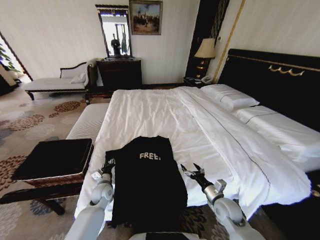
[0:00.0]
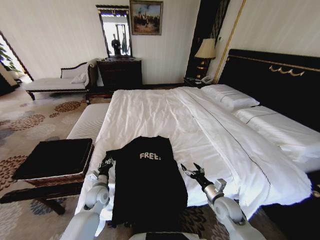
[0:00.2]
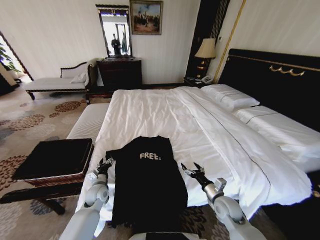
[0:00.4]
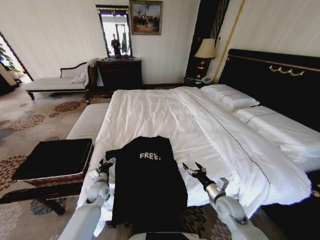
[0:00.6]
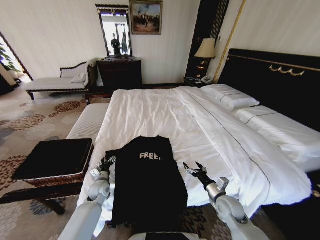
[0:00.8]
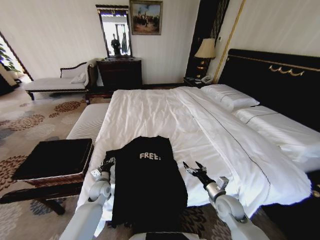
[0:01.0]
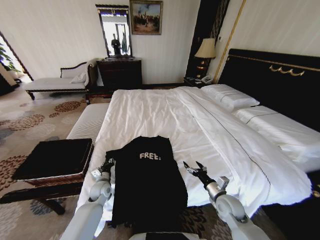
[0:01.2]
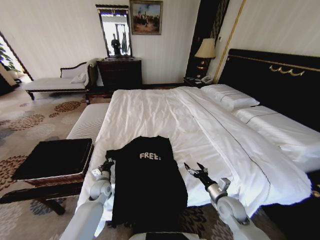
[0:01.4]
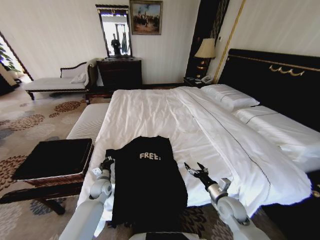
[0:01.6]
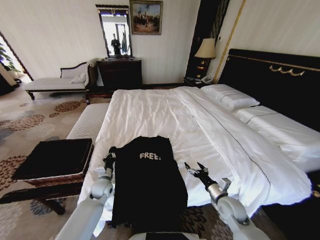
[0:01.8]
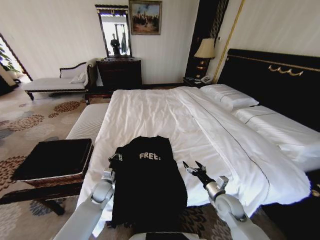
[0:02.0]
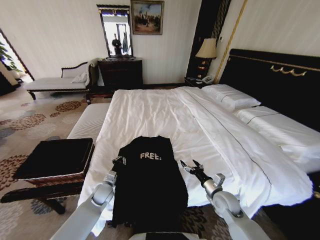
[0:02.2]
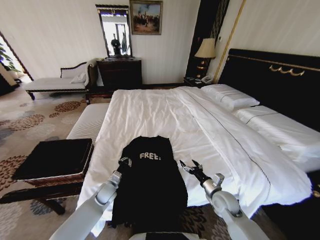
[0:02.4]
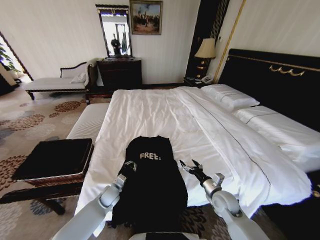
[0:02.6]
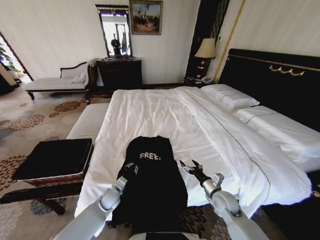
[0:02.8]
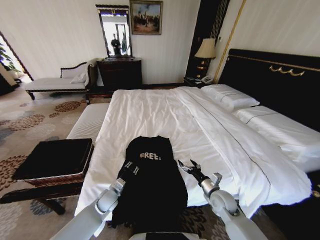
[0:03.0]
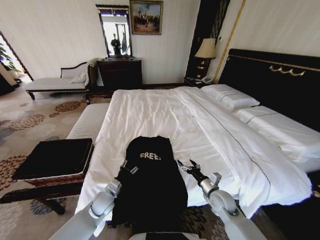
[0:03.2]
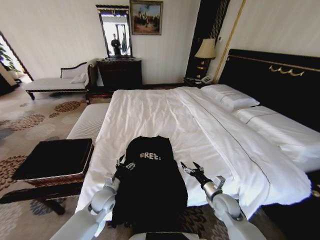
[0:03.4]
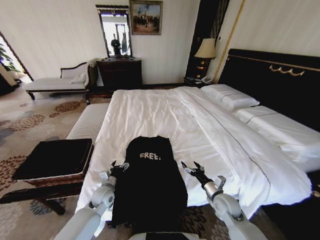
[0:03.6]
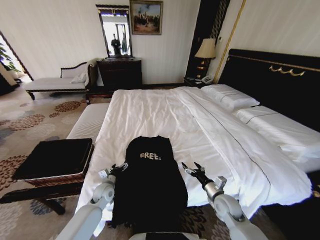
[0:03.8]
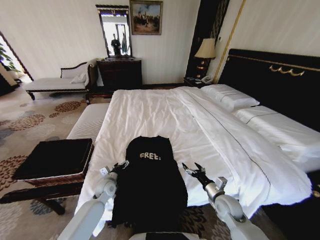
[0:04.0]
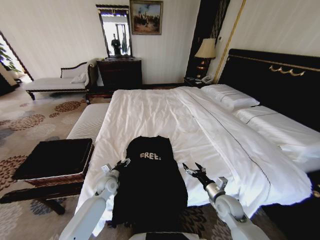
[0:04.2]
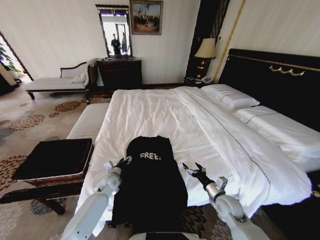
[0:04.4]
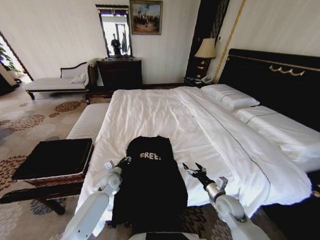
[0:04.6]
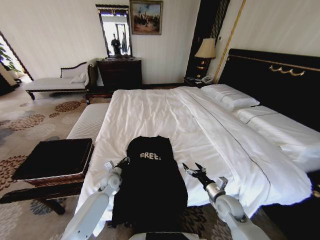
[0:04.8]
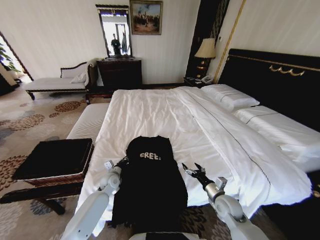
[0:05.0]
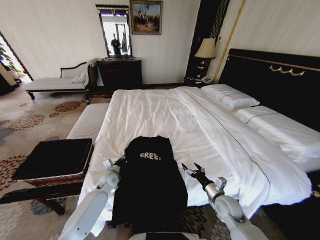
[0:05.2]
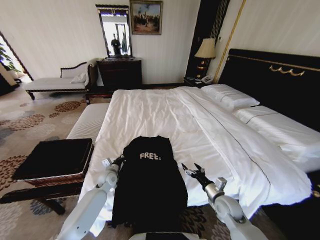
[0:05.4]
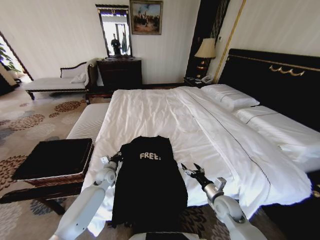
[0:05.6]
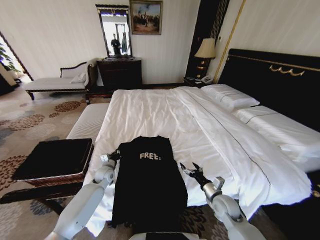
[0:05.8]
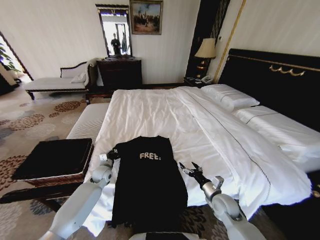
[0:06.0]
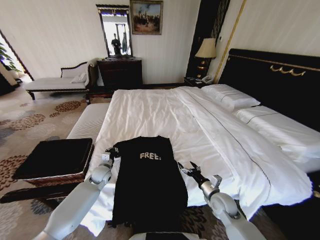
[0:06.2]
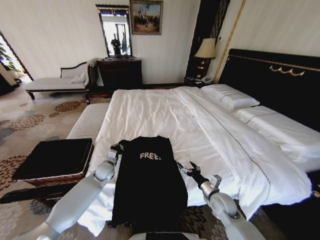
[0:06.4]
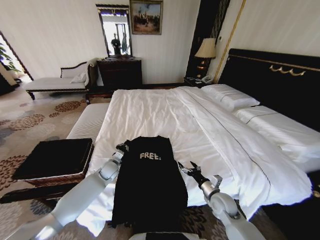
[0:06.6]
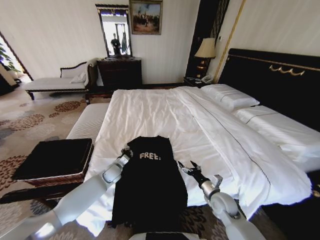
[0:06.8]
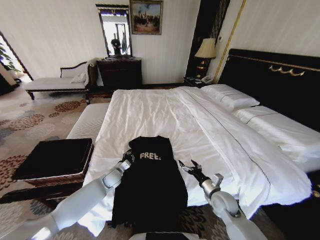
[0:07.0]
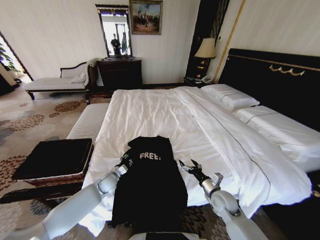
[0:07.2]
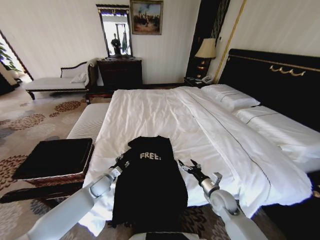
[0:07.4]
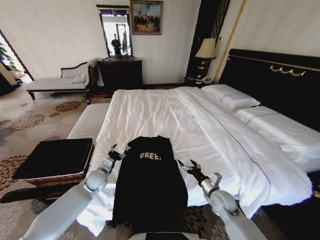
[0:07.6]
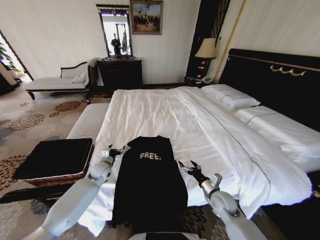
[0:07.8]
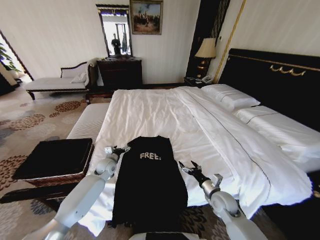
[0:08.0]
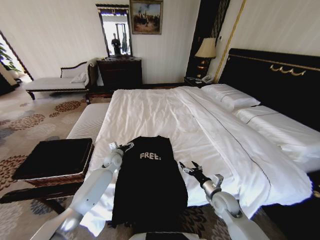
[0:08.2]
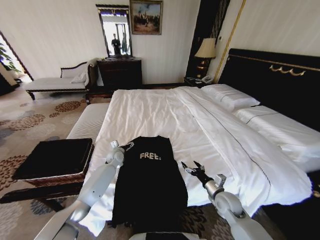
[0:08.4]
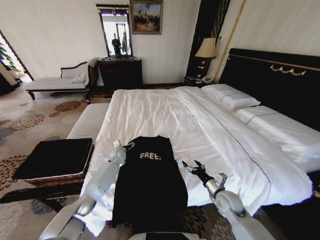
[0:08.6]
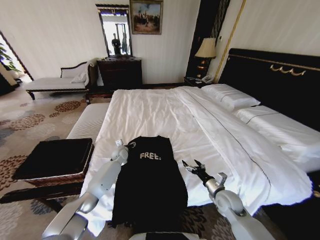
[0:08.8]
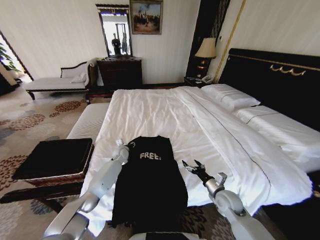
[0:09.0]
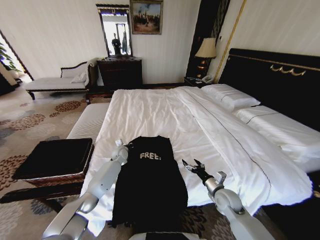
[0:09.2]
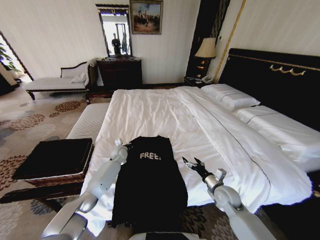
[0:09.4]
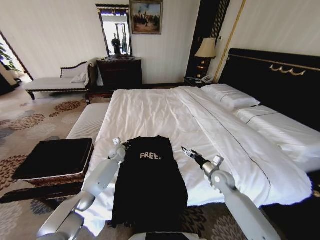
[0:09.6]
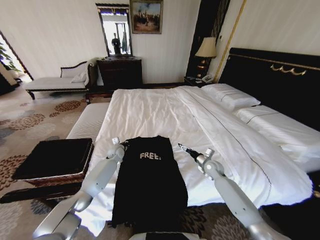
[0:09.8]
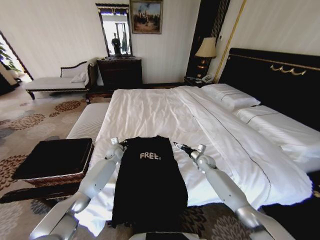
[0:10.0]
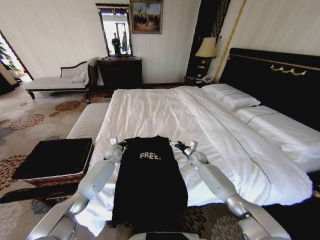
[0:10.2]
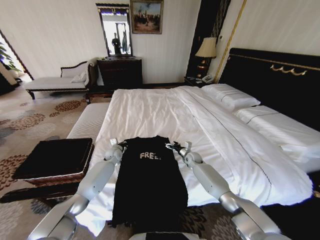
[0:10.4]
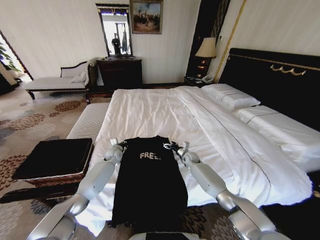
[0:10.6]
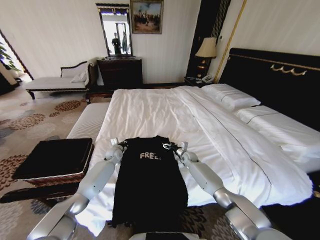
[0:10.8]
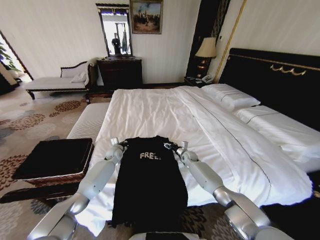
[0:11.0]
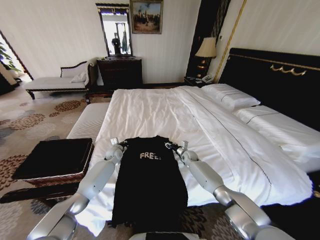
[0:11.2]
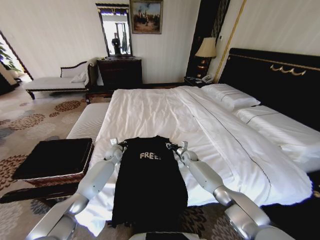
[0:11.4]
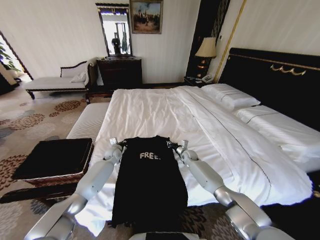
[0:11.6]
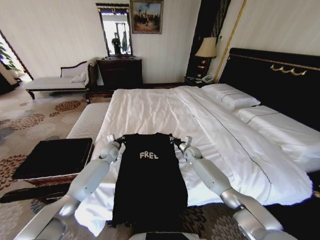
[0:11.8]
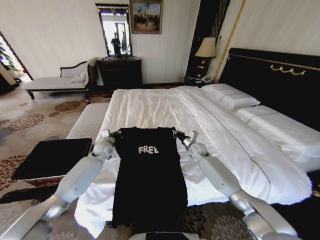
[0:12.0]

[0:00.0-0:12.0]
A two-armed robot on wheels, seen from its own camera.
Task of the whole recording: Fold the clothes on the bed and place them into the basket.
0:00.0 to 0:01.6: The left gripper closes.
0:01.6 to 0:03.0: The left gripper moves backward, some 5 cm, and opens up.
0:03.0 to 0:04.4: The left gripper is displaced forward by about 10 cm, and opens its fingers.
0:04.4 to 0:06.0: The left gripper moves some 5 cm, and closes its fingers.
0:06.0 to 0:07.6: The left gripper moves roughly 5 cm, and opens its fingers.
0:07.6 to 0:09.0: The left gripper travels forward and to the right by about 20 cm.
0:09.0 to 0:10.4: The left gripper closes; the right gripper is displaced forward by approximately 25 cm.
0:10.4 to 0:12.0: The two grippers go roughly 10 cm upward. The right gripper closes.

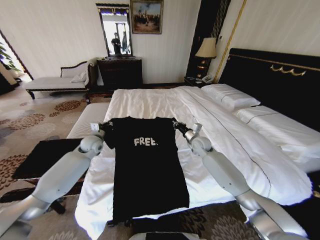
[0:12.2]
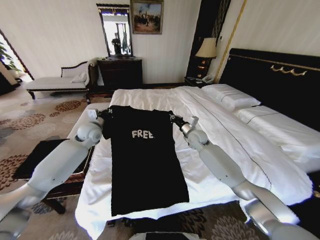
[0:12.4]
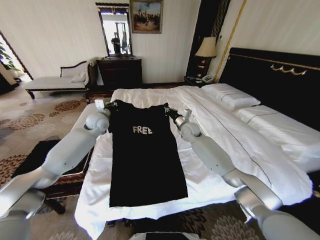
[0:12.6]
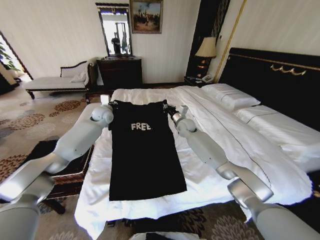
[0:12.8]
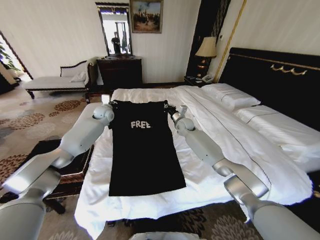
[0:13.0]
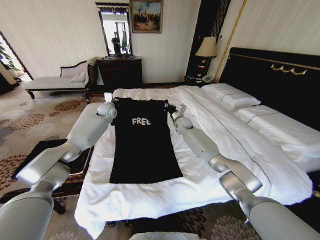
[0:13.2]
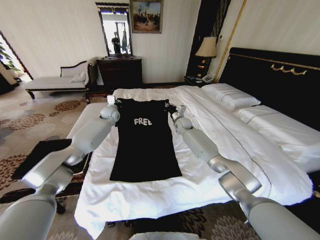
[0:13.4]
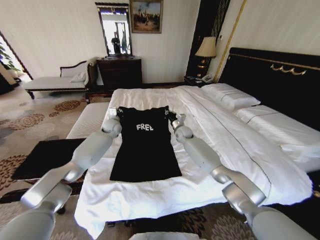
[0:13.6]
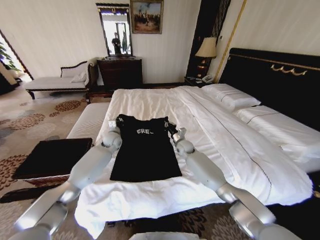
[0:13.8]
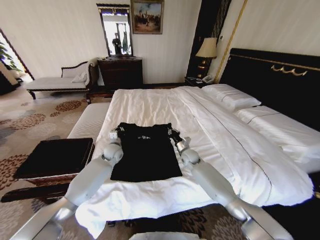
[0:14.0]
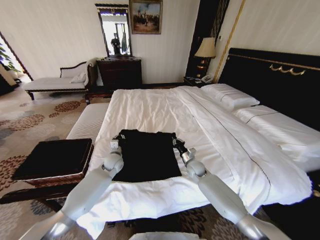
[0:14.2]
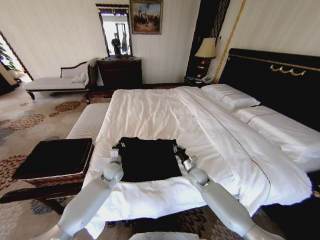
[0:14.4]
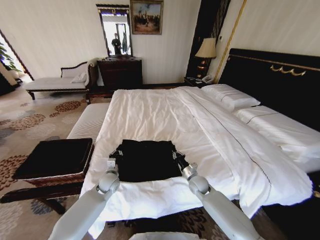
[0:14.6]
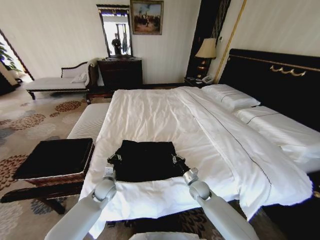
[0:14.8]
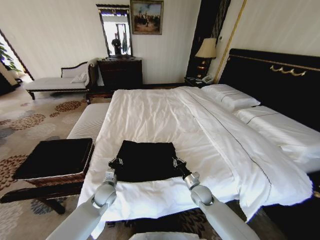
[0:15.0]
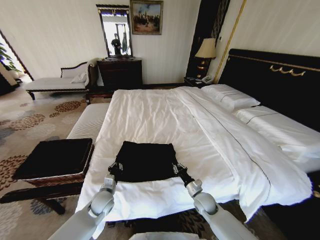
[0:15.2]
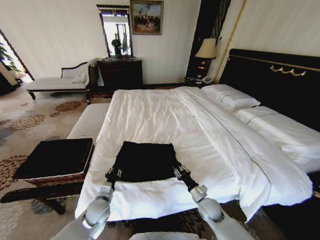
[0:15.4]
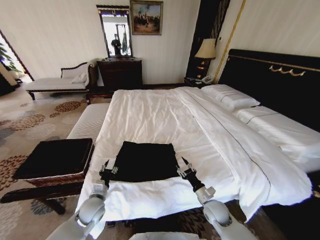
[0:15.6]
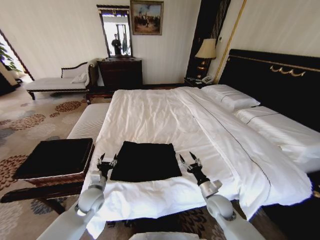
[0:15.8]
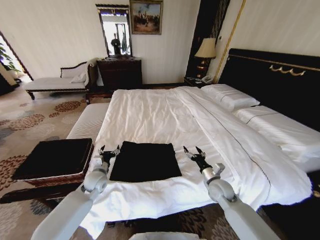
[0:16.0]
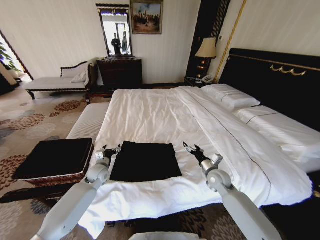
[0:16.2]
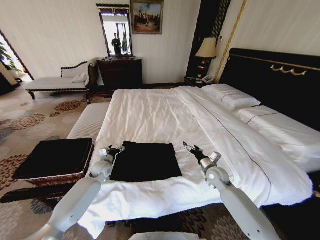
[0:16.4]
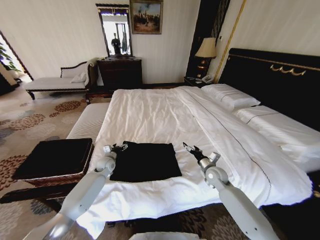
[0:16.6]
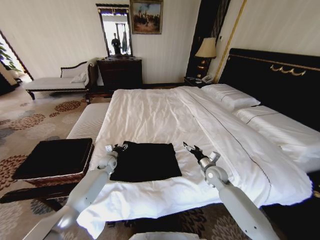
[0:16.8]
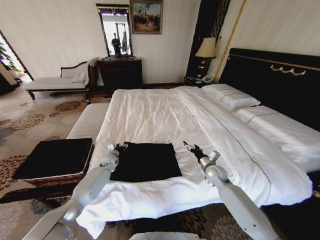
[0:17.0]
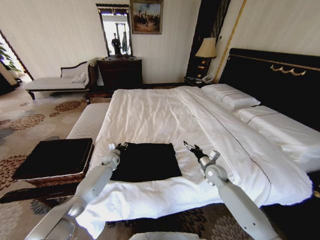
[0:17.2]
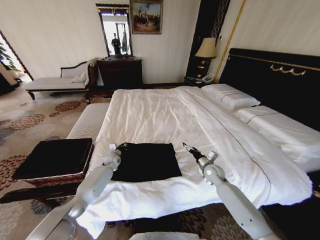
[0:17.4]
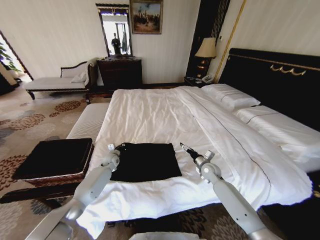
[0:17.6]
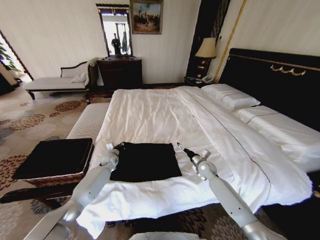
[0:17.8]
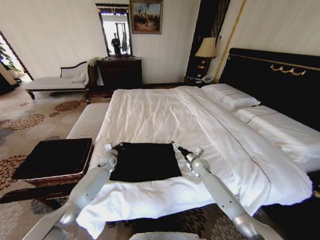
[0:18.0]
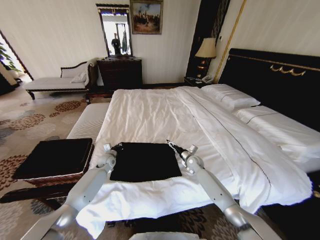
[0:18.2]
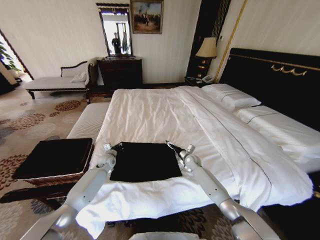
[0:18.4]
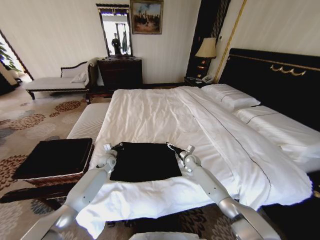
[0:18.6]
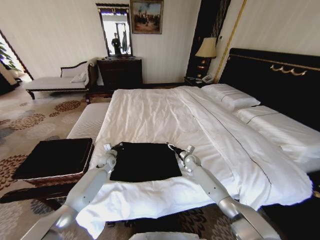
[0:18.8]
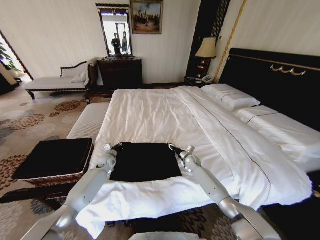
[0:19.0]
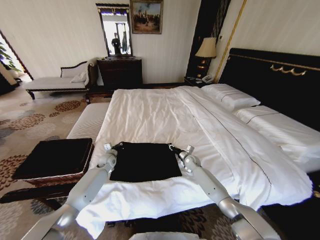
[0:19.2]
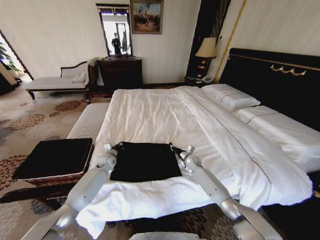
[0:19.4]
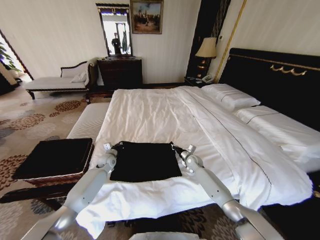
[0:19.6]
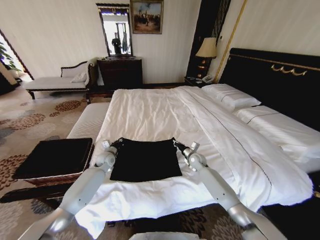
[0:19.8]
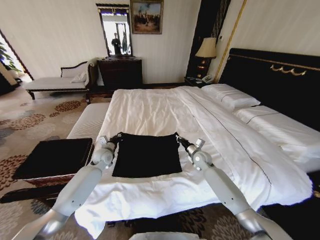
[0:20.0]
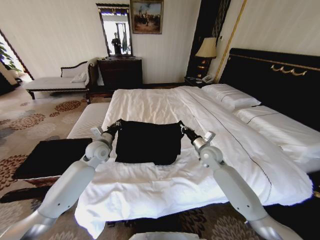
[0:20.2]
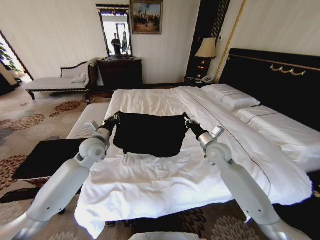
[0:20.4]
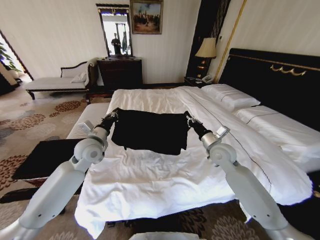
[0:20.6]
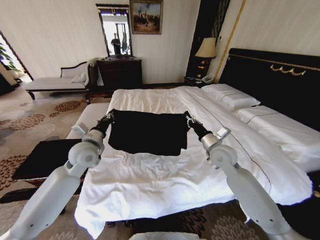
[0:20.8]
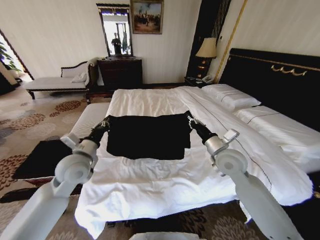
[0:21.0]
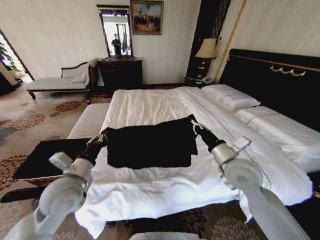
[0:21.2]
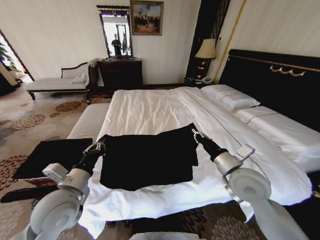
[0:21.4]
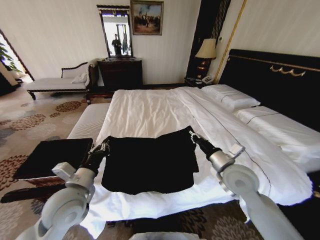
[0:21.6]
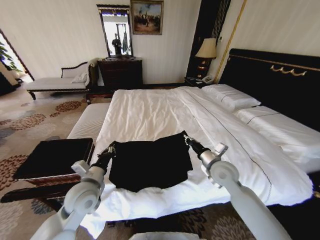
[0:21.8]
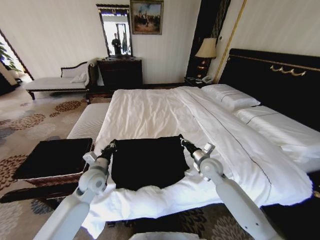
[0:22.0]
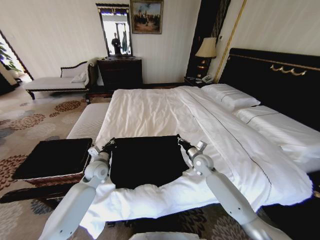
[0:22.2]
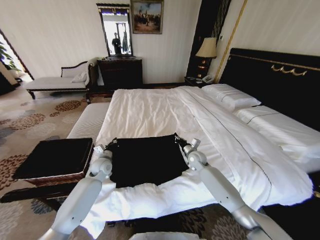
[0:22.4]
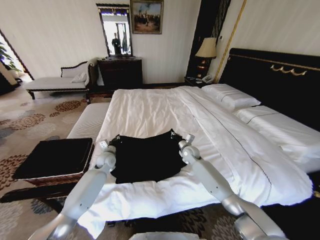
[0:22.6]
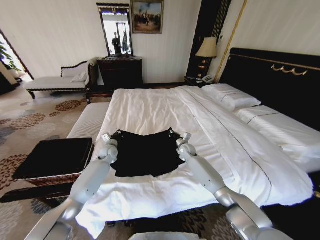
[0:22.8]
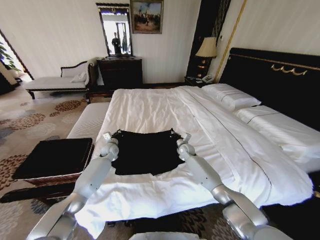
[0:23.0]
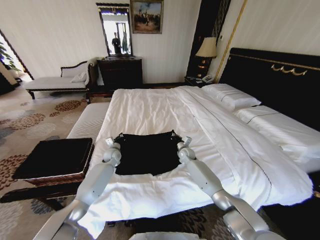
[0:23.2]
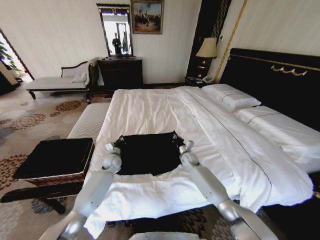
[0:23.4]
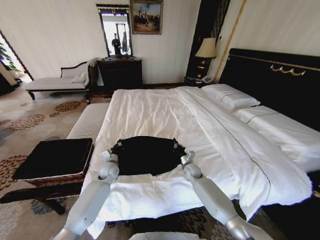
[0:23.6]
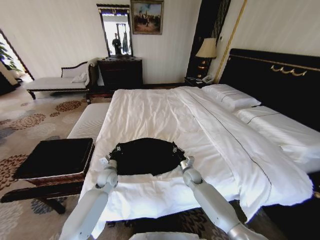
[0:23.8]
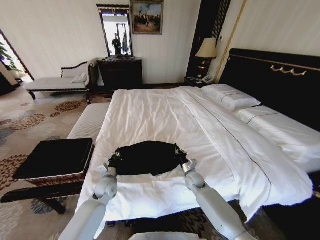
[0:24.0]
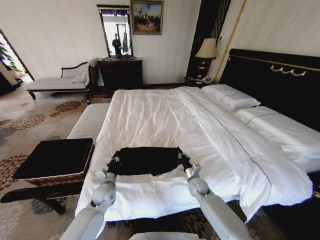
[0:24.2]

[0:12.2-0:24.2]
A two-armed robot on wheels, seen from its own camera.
Task of the whole recording: Fold the clothes on the bed and place them into the basket.
0:12.2 to 0:13.8: The right gripper heads to the left and downward, covering some 10 cm, and travels forward and back again, roughly 10 cm each way. The left gripper is displaced to the right and forward by some 10 cm.
0:13.8 to 0:15.2: Both grippers travel together backward and downward, roughly 30 cm.
0:15.2 to 0:16.6: The left gripper moves forward, roughly 15 cm, and opens its fingers, while the right gripper heads forward, upward and to the right, covering some 15 cm, and opens its fingers.
0:16.6 to 0:18.2: The right gripper is displaced forward and to the left by roughly 10 cm. Meanwhile the left gripper closes up.
0:18.2 to 0:19.8: The right gripper closes up.
0:19.8 to 0:21.2: The left gripper is displaced backward and upward by some 30 cm. The right gripper shifts roughly 30 cm upward and backward.
0:21.2 to 0:22.6: The grippers both shift forward and downward by about 30 cm.
0:22.6 to 0:24.2: The two grippers go some 15 cm backward and downward.
